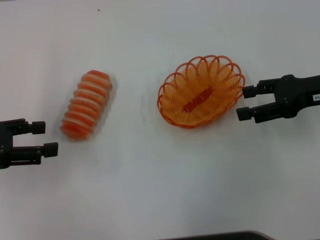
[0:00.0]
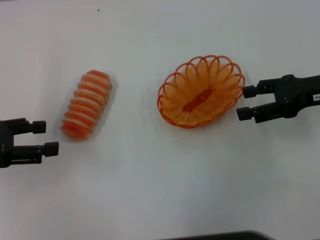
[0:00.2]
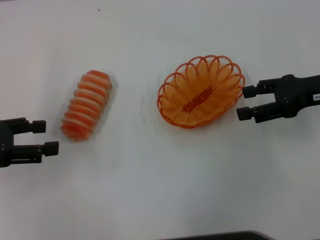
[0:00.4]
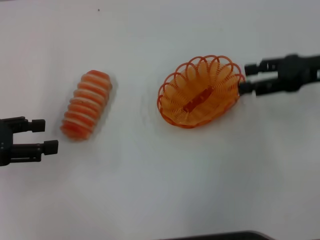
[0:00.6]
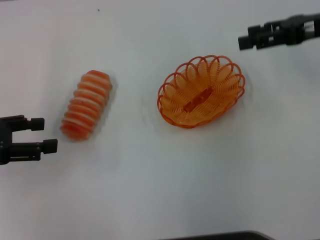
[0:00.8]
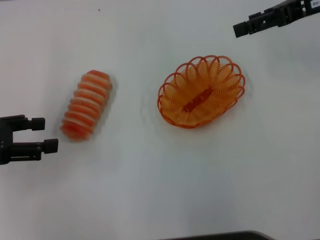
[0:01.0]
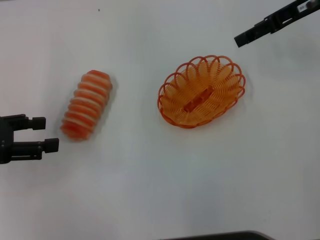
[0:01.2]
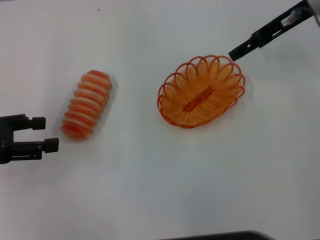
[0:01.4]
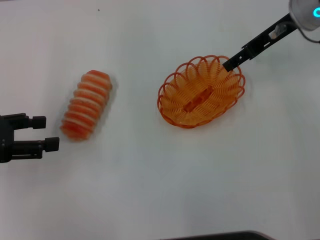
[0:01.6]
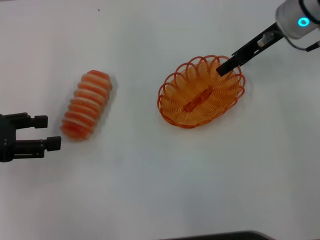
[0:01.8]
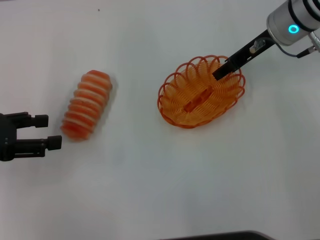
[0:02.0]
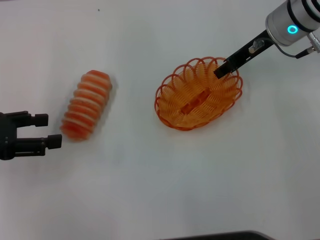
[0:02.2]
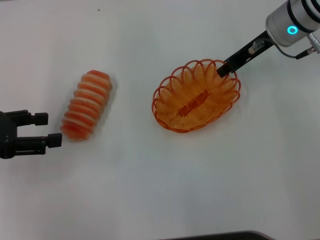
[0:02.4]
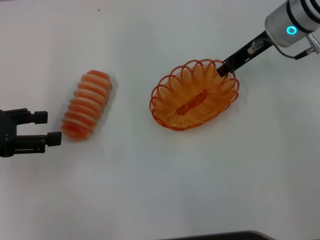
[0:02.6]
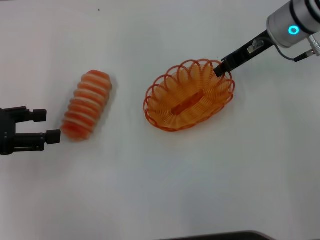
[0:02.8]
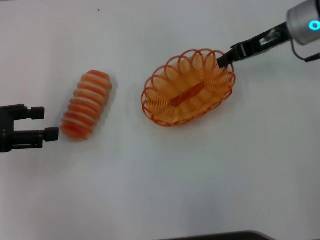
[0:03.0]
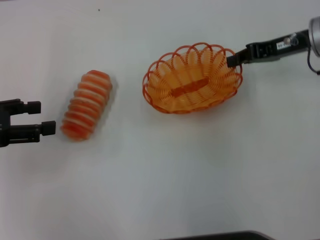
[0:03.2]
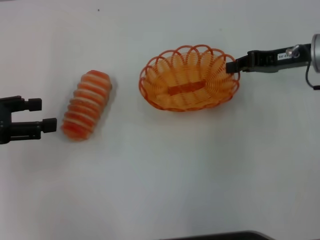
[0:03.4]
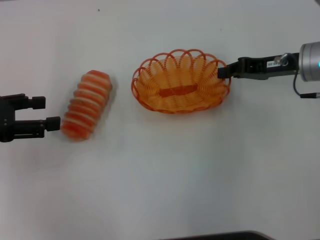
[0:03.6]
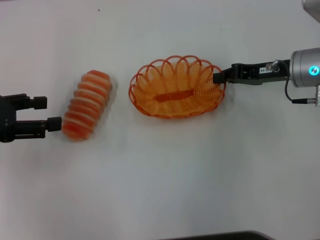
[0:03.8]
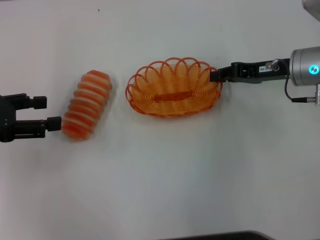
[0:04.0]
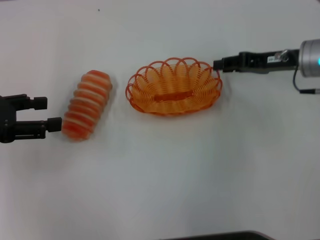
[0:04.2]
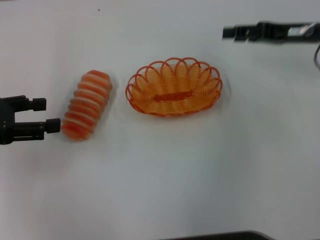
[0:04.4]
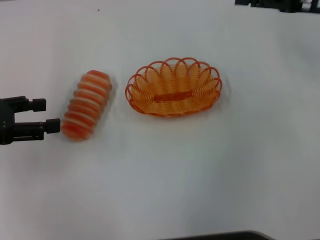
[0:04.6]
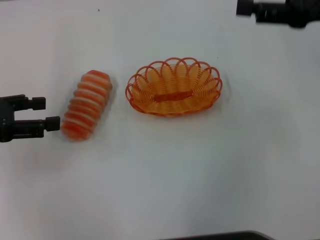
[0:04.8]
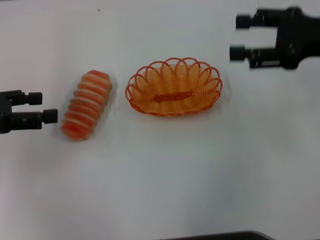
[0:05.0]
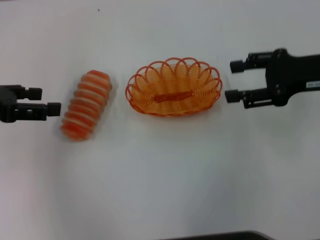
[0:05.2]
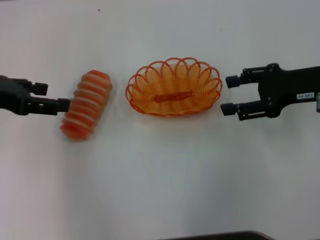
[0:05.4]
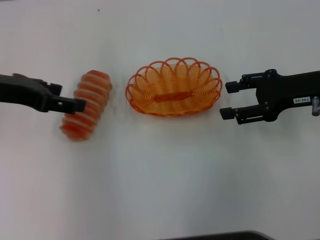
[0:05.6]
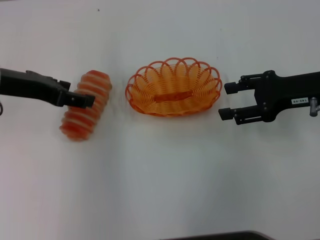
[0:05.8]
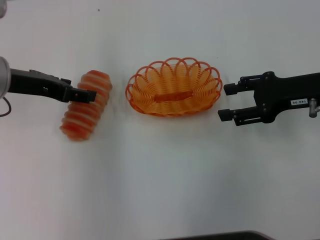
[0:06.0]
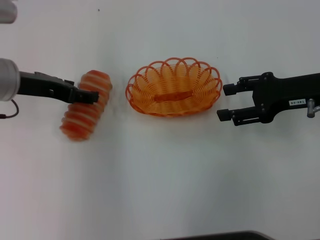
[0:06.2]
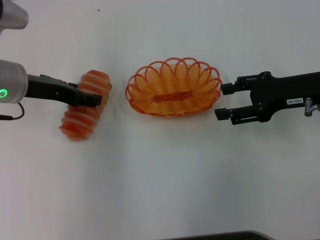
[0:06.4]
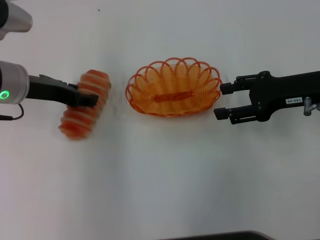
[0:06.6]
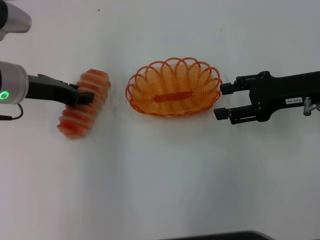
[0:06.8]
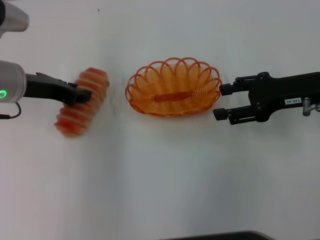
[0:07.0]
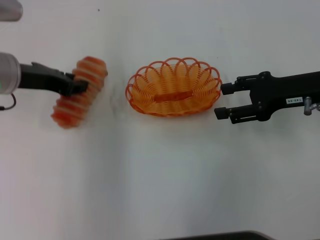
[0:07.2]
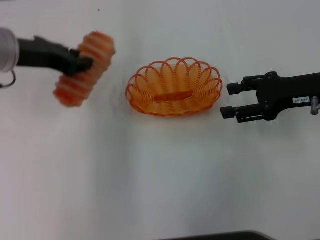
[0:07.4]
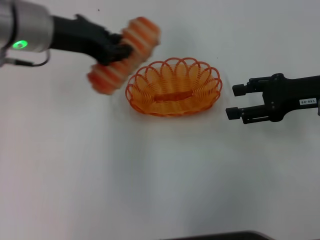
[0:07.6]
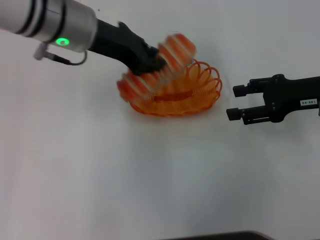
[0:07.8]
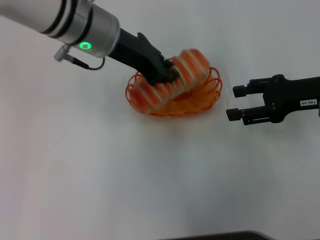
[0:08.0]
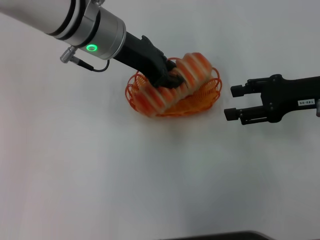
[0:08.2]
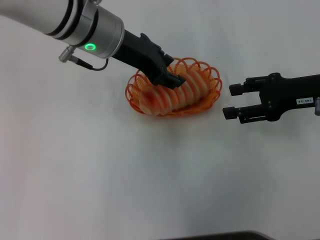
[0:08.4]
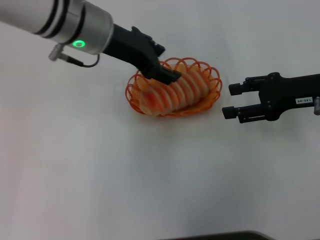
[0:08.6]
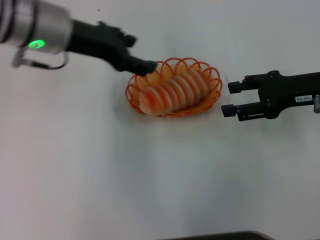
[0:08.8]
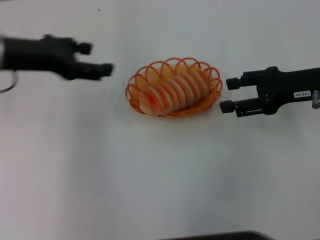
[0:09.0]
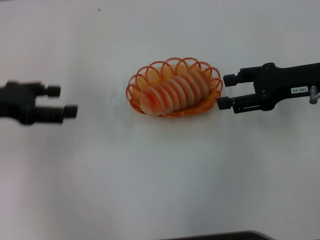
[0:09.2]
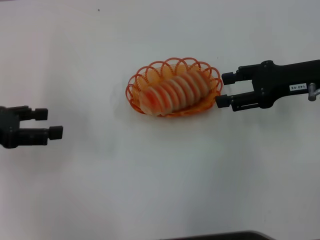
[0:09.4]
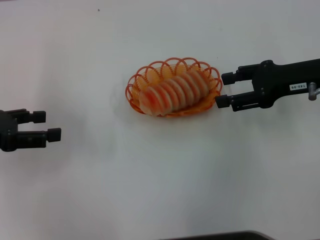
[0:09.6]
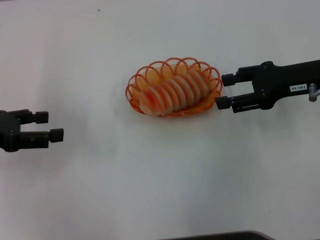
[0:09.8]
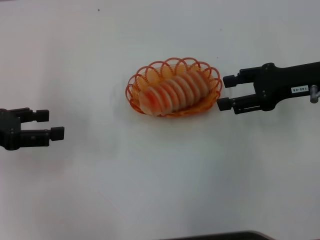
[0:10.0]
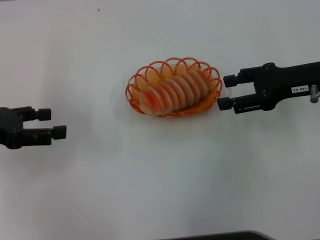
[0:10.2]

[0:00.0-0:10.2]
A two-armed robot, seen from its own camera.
Step, 0:00.0 to 0:03.0: Pick up the basket with the right gripper.
Step, 0:03.2 to 0:04.4: Place the basket in the center of view with the right gripper.
Step, 0:04.6 to 0:07.2: Pick up the long bread with the left gripper.
Step, 0:07.4 to 0:08.8: Place the long bread into the basket with the left gripper.
0:00.0 to 0:01.4: The right gripper is displaced forward, upward and to the left by some 15 cm.
0:01.4 to 0:03.0: The right gripper closes up.
0:03.0 to 0:04.4: The right gripper shifts by roughly 5 cm.
0:04.4 to 0:05.8: The left gripper moves to the right and forward, approximately 10 cm; the right gripper shifts about 5 cm backward, moves approximately 5 cm upward and comes back, and opens its fingers.
0:05.8 to 0:07.2: The left gripper closes.
0:07.2 to 0:08.8: The left gripper is displaced to the right by roughly 5 cm, and opens its fingers.
0:08.8 to 0:10.2: The left gripper shifts approximately 20 cm to the left, backward and downward.

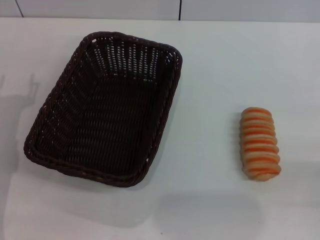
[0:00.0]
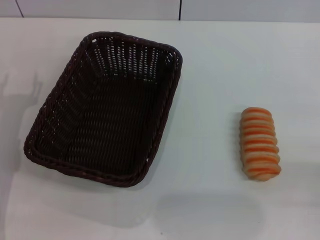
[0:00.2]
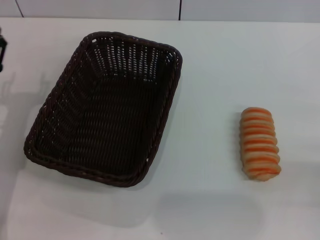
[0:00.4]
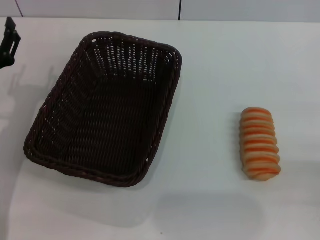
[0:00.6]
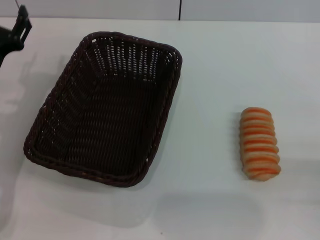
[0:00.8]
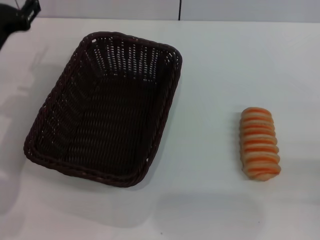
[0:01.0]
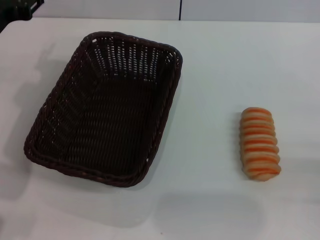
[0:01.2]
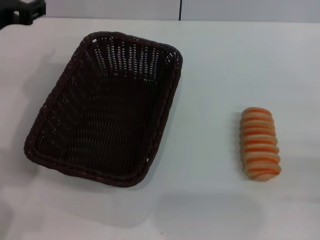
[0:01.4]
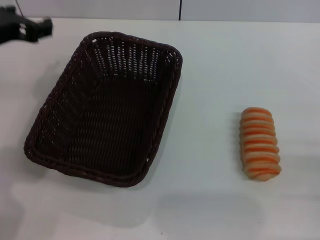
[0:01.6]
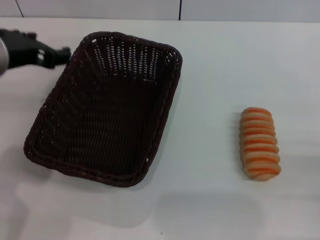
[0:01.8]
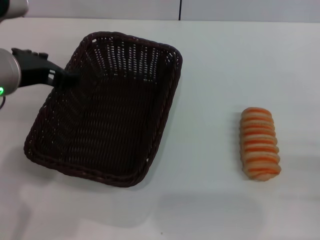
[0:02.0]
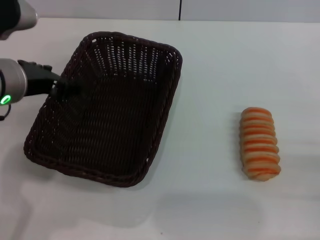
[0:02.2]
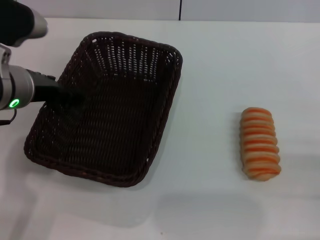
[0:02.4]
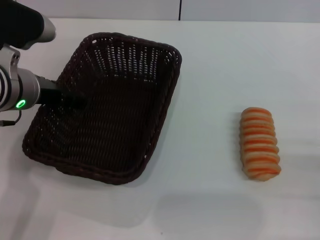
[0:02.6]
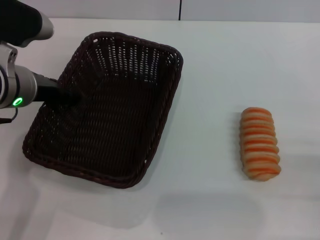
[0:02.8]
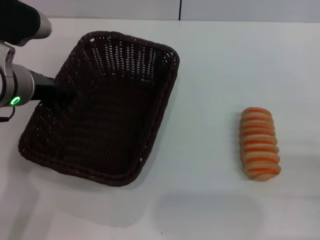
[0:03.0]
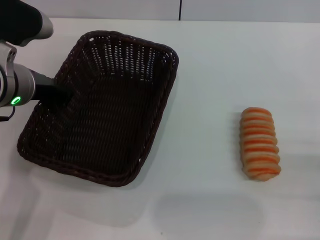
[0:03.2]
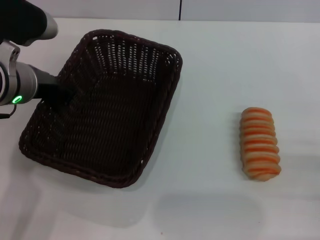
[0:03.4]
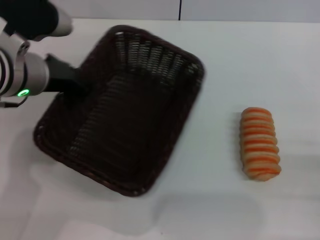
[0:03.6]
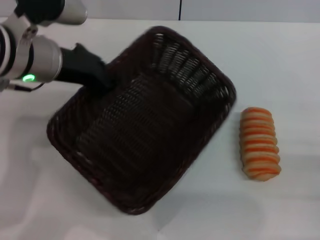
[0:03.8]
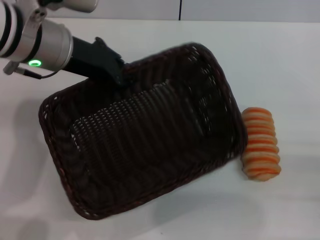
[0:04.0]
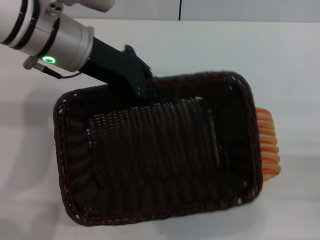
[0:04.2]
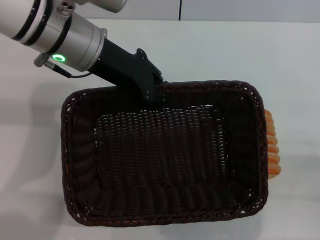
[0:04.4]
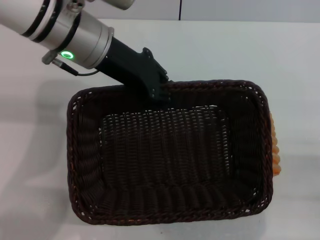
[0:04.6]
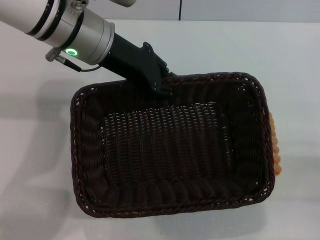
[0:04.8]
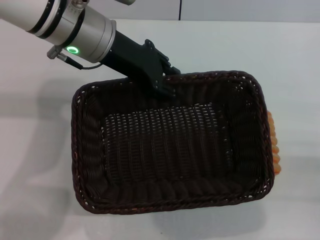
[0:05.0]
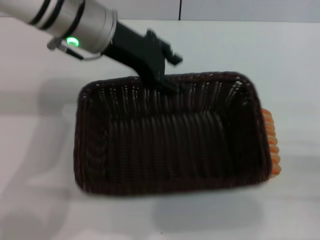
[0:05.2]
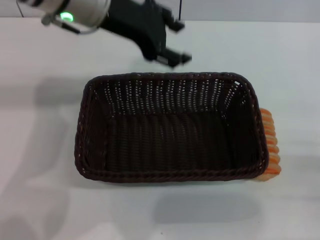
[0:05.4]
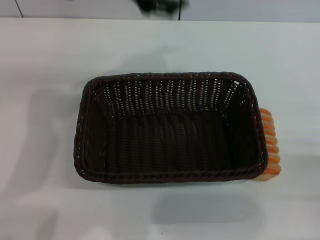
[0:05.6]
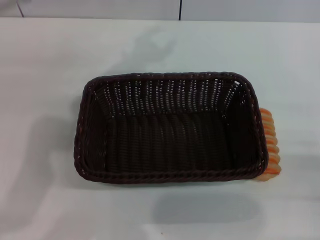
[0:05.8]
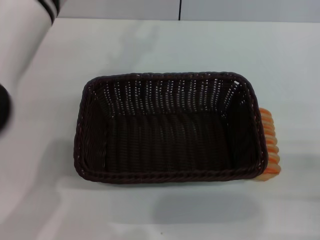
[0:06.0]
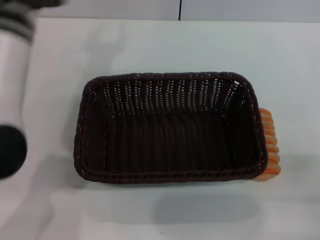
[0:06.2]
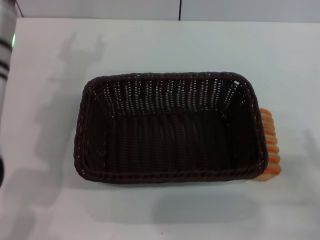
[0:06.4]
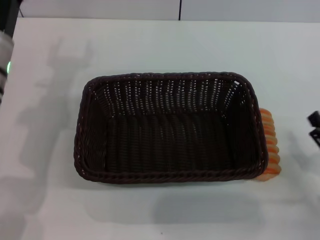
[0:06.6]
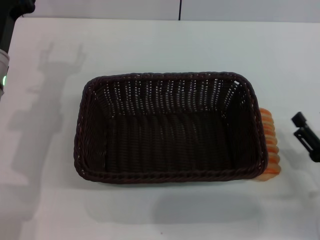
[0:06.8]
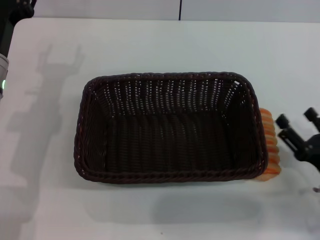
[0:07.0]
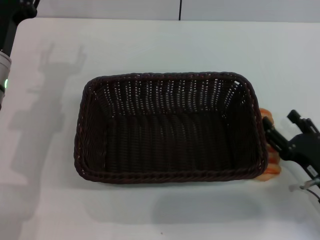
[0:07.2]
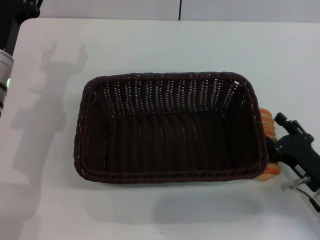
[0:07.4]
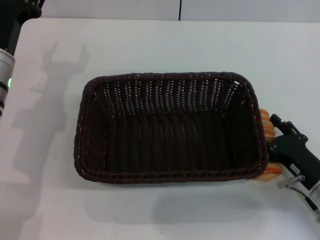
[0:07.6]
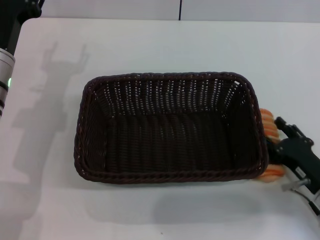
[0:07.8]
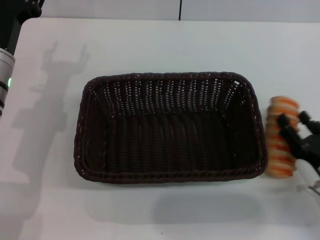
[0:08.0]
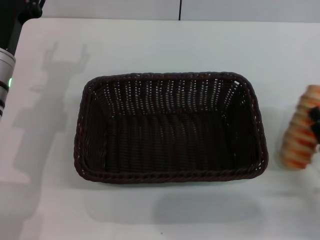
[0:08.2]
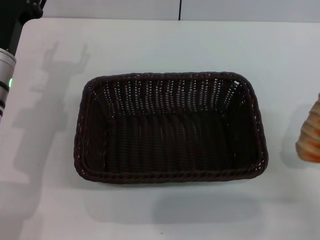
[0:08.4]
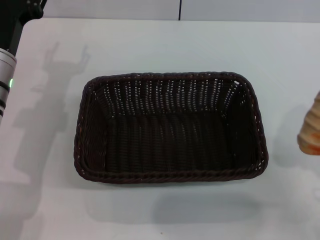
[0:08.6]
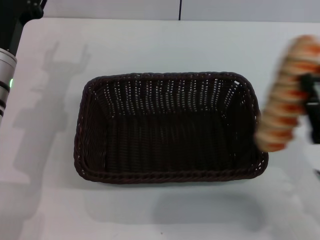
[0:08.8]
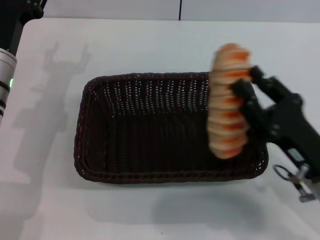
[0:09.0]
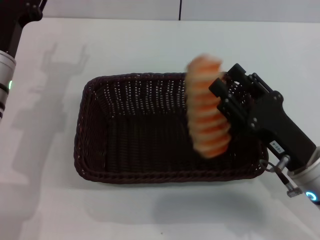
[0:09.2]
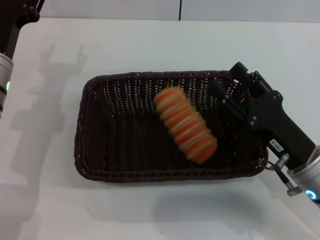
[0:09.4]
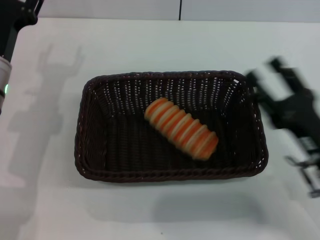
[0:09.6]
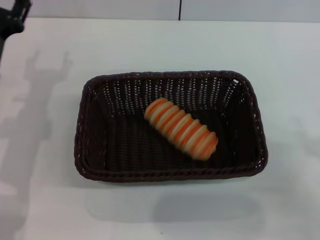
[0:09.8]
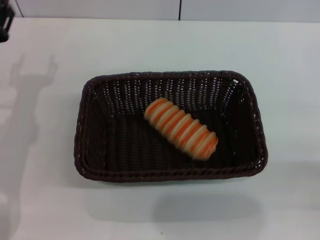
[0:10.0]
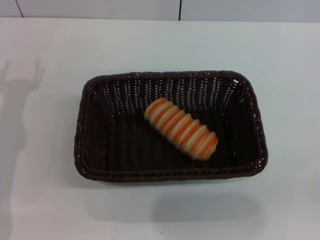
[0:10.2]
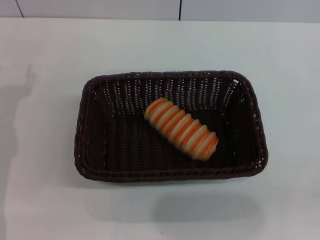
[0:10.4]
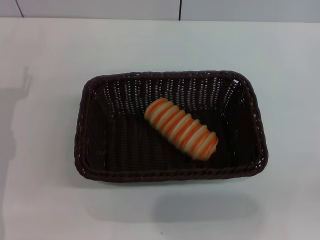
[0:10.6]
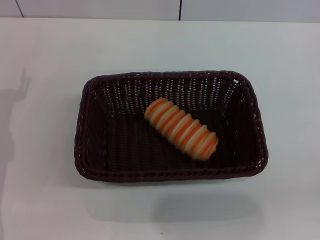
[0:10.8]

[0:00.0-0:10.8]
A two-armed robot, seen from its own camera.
Step, 0:00.0 to 0:03.8: Pick up the dark basket with the left gripper.
Step, 0:04.0 to 0:05.4: Place the dark basket in the center of view with the left gripper.
Step, 0:05.6 to 0:08.2: Pick up the long bread with the right gripper.
Step, 0:08.6 to 0:09.2: Place the long bread into the dark basket with the right gripper.
0:00.0 to 0:01.6: The left gripper travels upward by some 15 cm.
0:01.6 to 0:03.0: The left gripper heads downward, covering some 5 cm.
0:03.0 to 0:04.6: The left gripper moves to the right, upward and forward, about 10 cm, and closes up.
0:04.6 to 0:06.2: The left gripper opens.
0:06.2 to 0:07.8: The right gripper is displaced to the left and forward by roughly 10 cm; the left gripper shifts some 15 cm downward and to the left.
0:07.8 to 0:09.2: The right gripper heads upward and to the left, covering some 10 cm, and closes.
0:09.2 to 0:10.8: The right gripper moves to the right and backward, approximately 20 cm, and opens its fingers, while the left gripper moves to the left and backward, roughly 10 cm.
